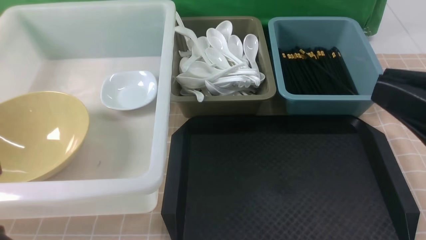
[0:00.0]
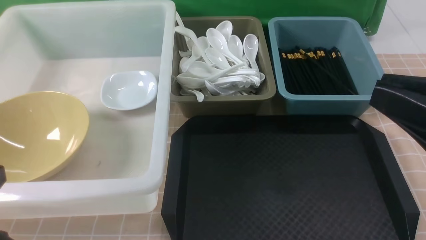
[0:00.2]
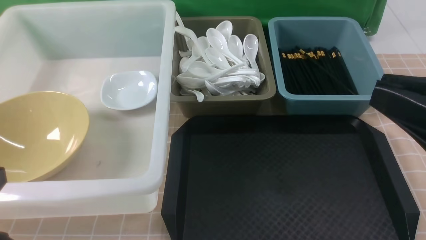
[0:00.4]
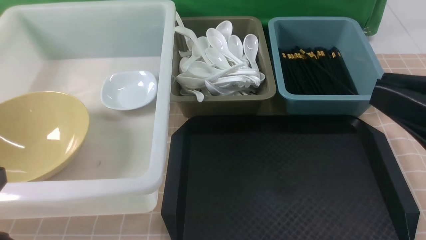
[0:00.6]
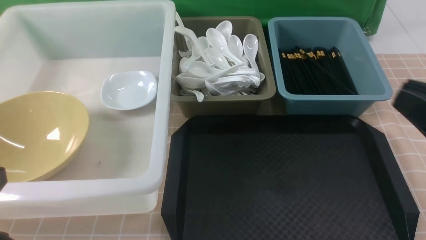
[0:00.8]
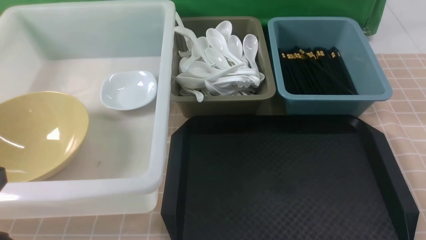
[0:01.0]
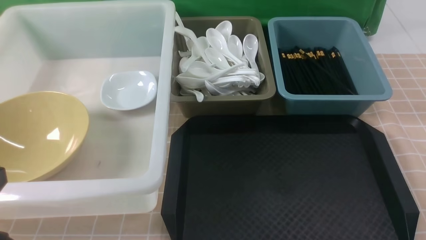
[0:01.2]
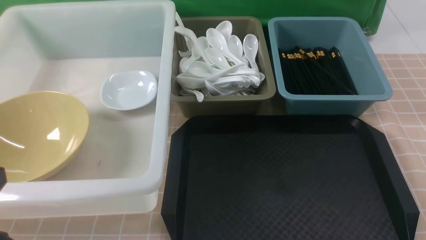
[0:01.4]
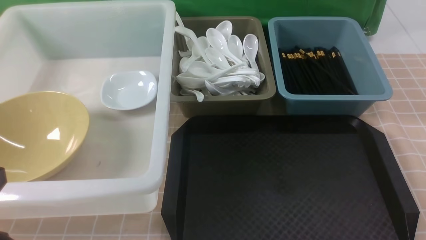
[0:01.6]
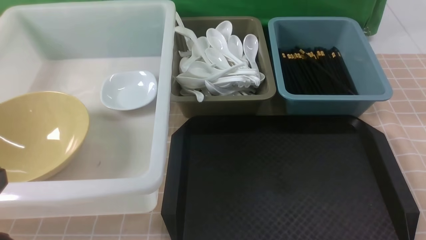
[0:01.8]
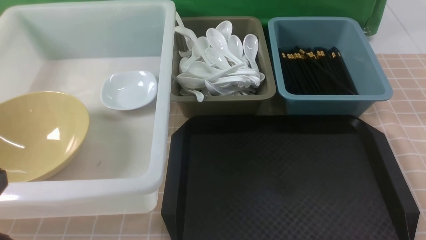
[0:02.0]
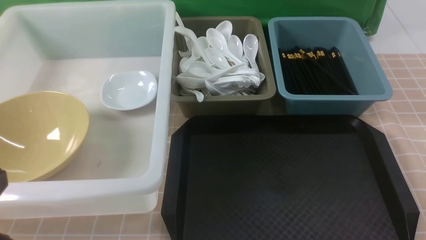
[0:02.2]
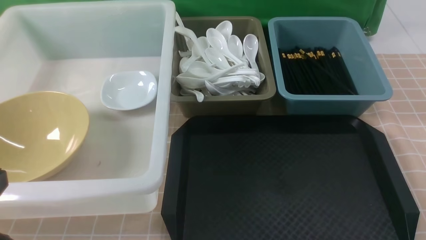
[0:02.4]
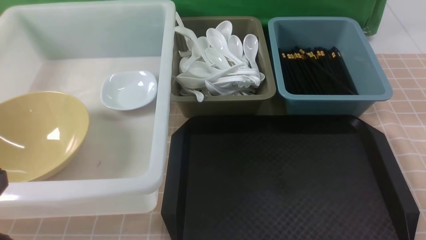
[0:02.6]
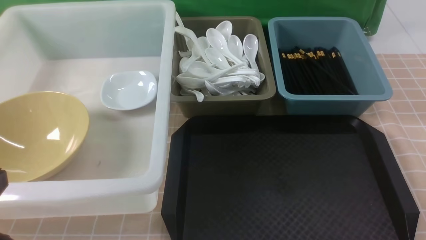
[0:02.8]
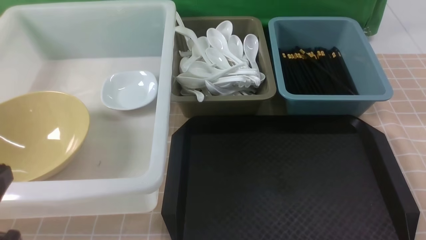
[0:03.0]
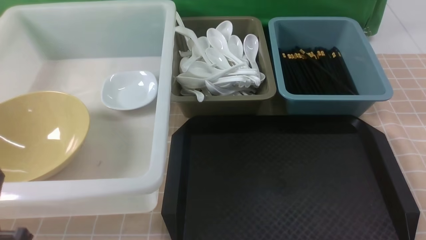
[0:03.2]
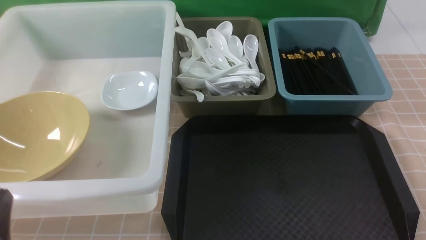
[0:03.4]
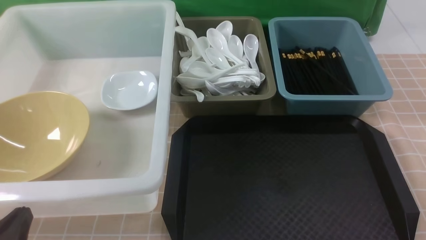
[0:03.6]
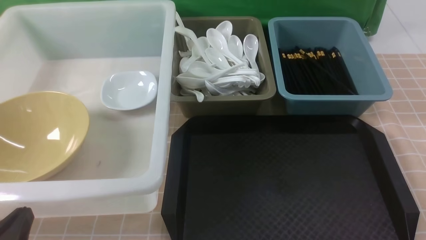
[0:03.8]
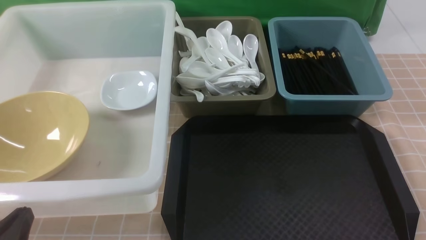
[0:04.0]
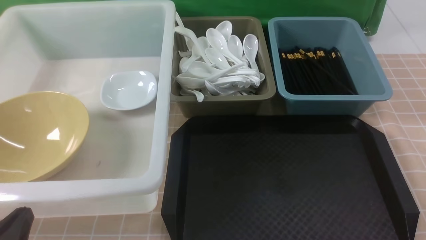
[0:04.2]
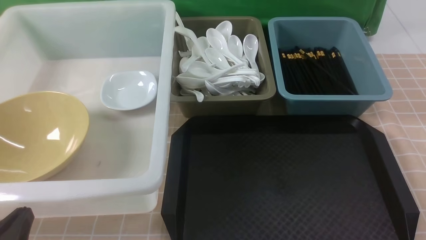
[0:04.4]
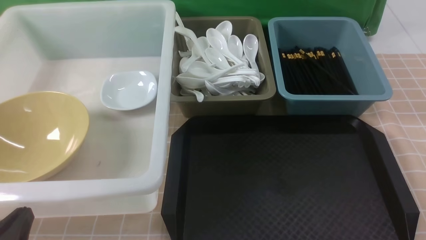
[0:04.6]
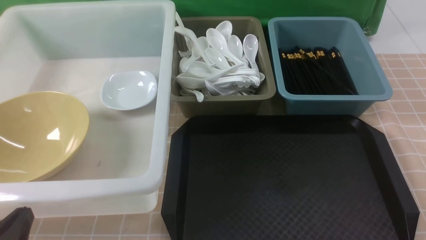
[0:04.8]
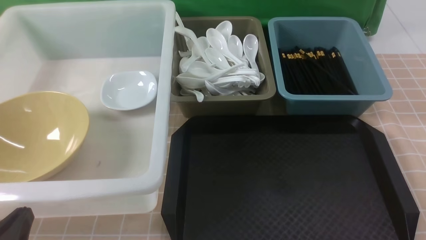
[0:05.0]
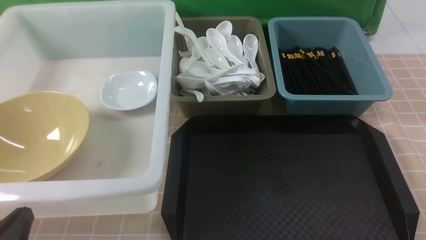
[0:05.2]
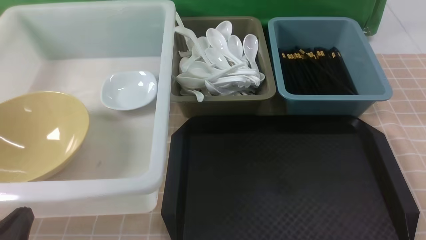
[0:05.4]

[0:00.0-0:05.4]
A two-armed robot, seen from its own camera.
Task of the whole recording: on brown table put chopsticks spoon bowls plates into blue grey white boxes.
0:00.0 to 0:01.4: The right gripper is displaced downward and to the right by roughly 20 cm.
0:02.8 to 0:04.0: The left gripper moves downward, approximately 10 cm.
0:04.0 to 0:05.4: Both grippers stay put.
